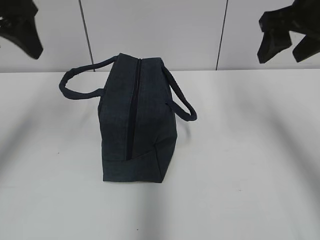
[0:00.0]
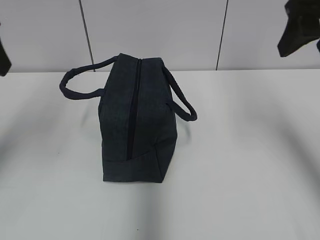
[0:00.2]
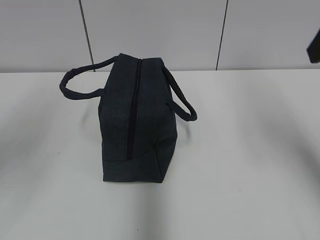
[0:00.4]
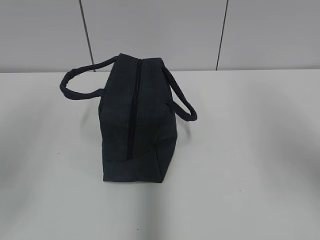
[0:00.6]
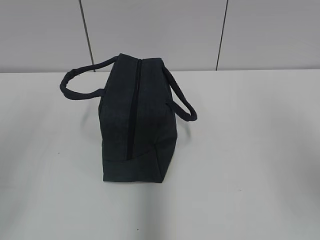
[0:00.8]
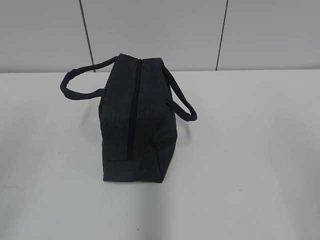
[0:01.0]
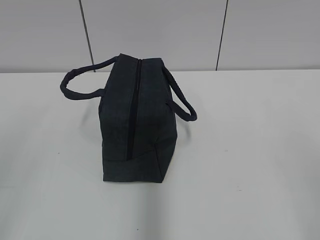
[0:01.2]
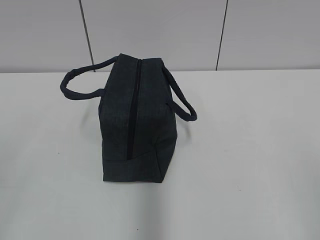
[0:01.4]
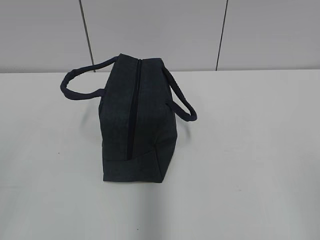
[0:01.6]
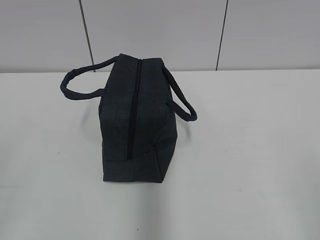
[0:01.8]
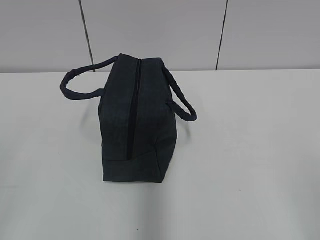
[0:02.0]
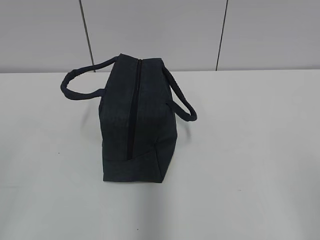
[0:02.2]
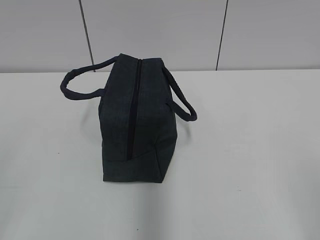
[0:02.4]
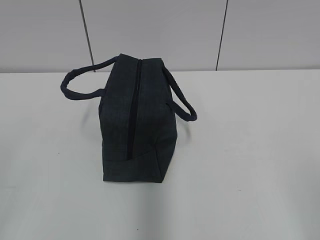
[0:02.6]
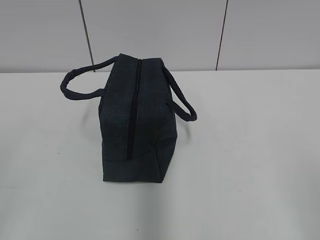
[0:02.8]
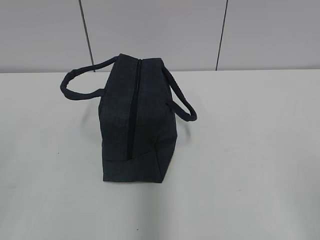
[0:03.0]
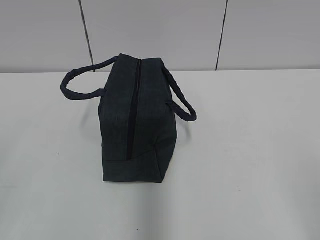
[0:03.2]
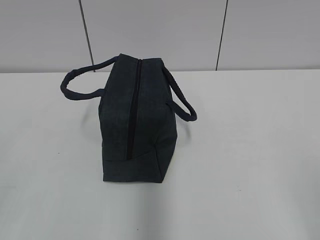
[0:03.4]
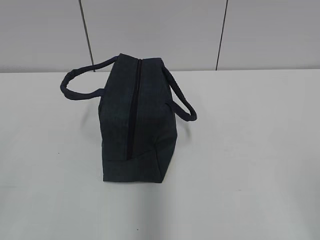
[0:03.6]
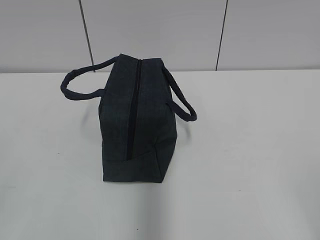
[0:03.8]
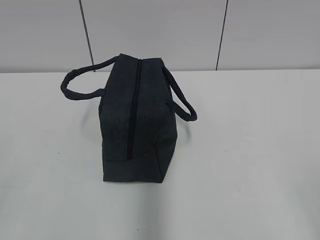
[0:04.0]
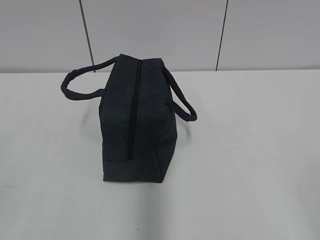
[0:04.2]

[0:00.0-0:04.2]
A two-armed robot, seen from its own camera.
0:00.0 to 0:01.4: The two grippers go about 30 cm backward.

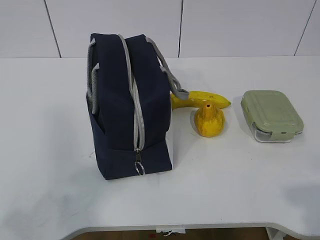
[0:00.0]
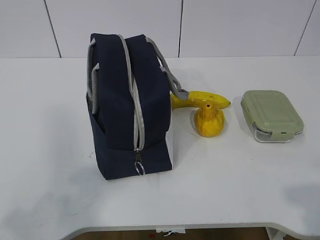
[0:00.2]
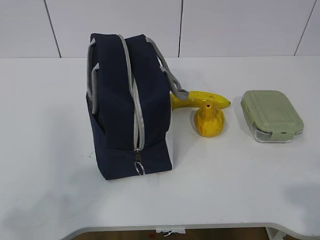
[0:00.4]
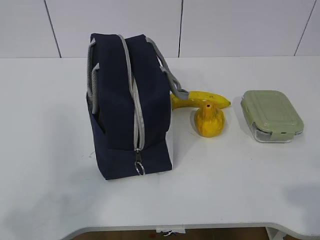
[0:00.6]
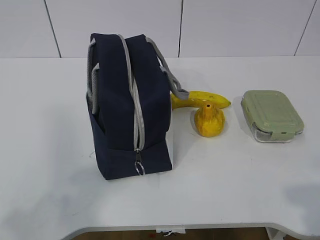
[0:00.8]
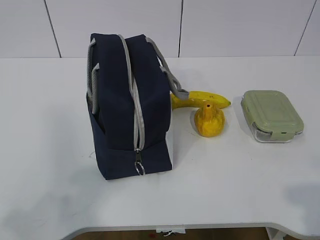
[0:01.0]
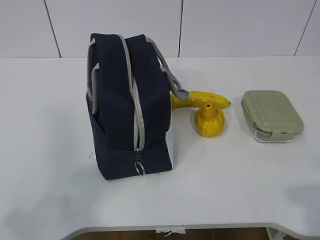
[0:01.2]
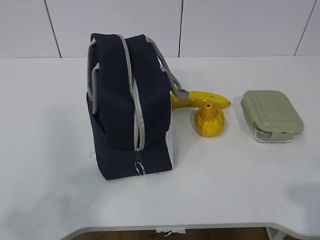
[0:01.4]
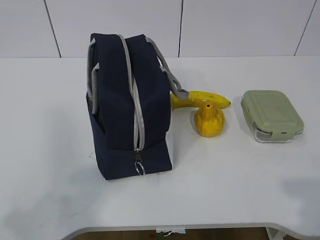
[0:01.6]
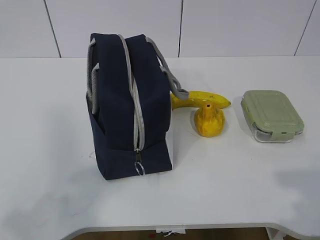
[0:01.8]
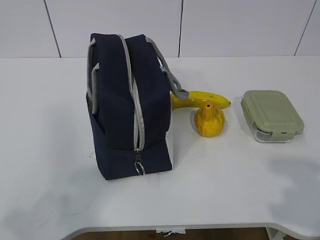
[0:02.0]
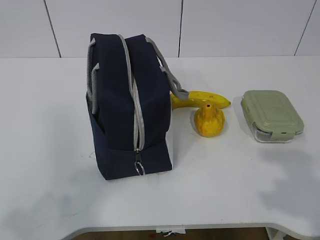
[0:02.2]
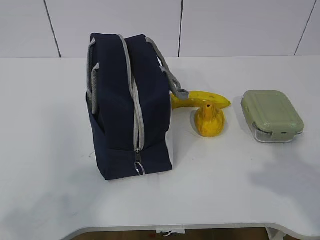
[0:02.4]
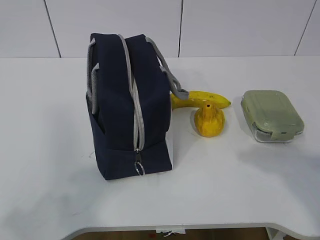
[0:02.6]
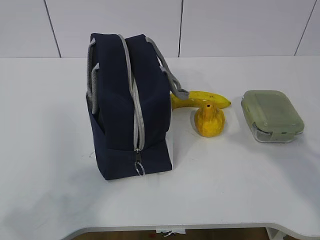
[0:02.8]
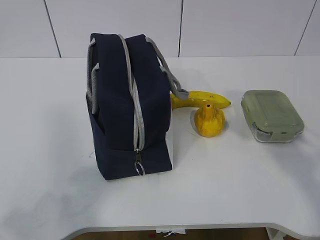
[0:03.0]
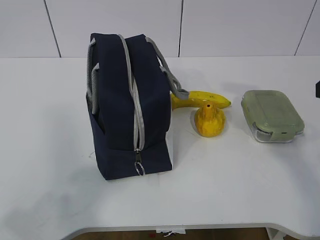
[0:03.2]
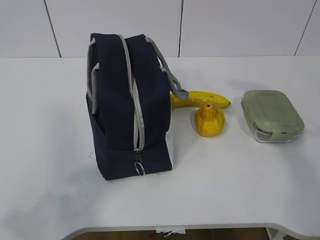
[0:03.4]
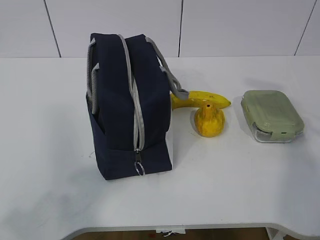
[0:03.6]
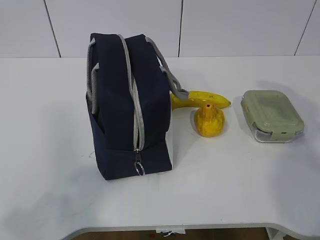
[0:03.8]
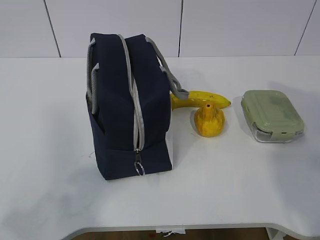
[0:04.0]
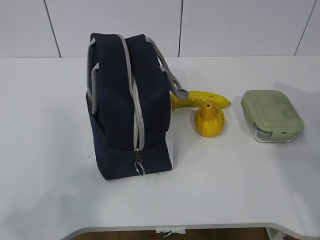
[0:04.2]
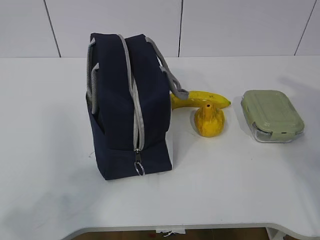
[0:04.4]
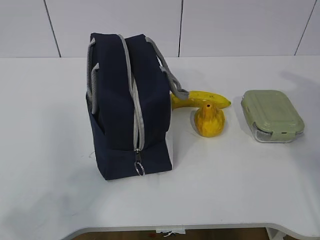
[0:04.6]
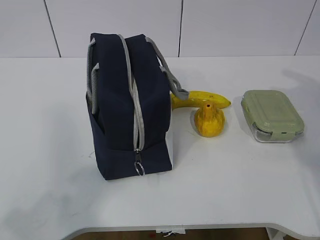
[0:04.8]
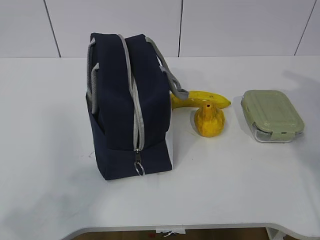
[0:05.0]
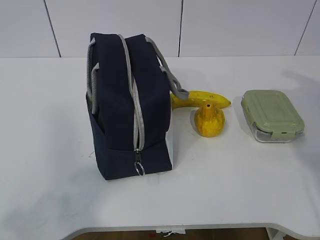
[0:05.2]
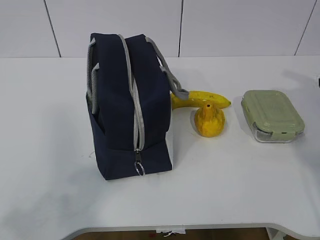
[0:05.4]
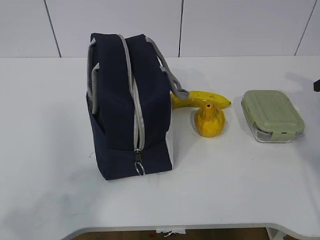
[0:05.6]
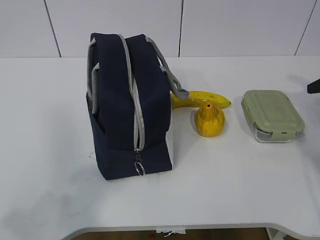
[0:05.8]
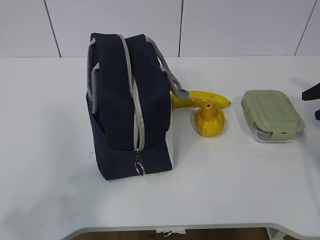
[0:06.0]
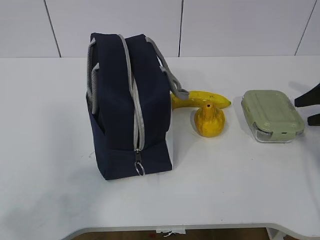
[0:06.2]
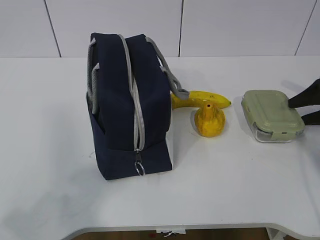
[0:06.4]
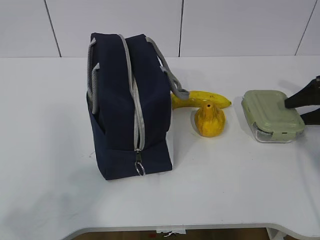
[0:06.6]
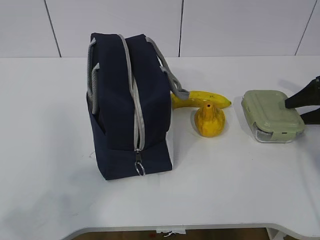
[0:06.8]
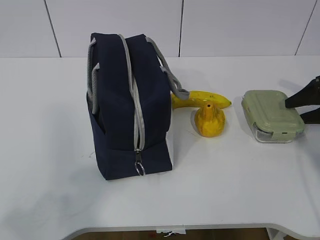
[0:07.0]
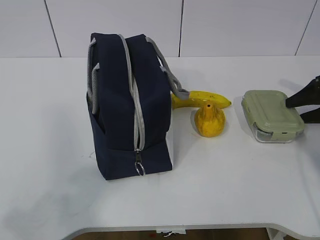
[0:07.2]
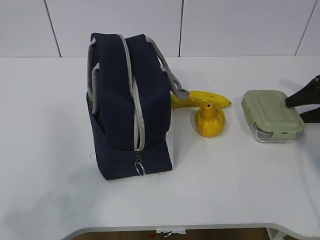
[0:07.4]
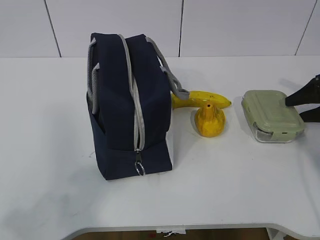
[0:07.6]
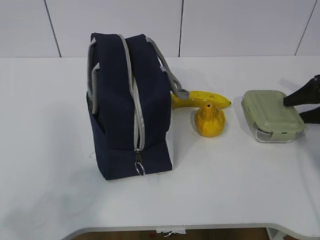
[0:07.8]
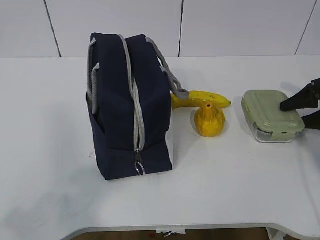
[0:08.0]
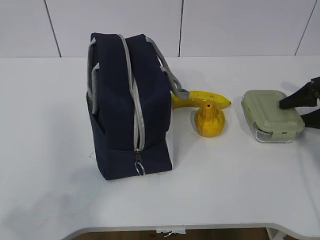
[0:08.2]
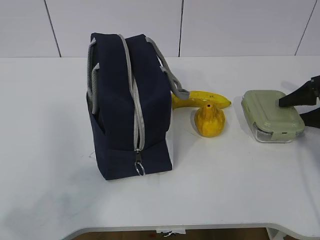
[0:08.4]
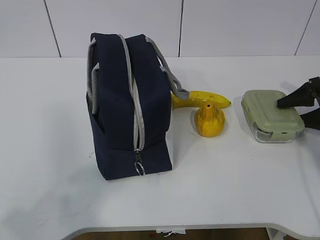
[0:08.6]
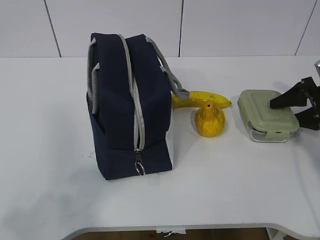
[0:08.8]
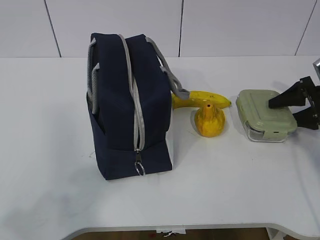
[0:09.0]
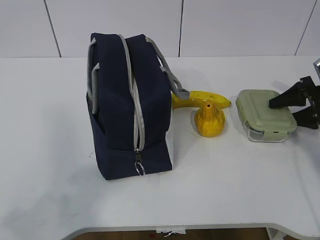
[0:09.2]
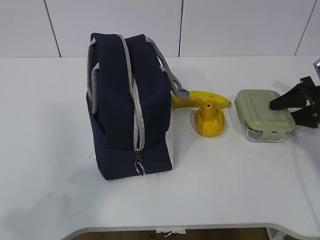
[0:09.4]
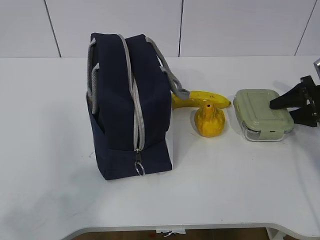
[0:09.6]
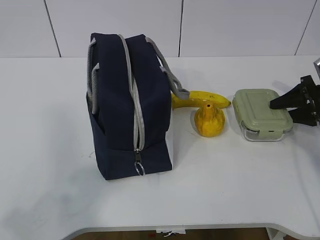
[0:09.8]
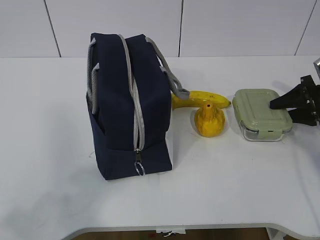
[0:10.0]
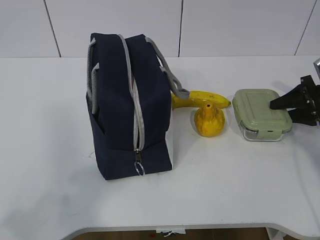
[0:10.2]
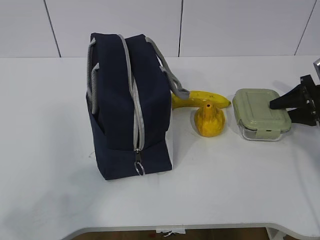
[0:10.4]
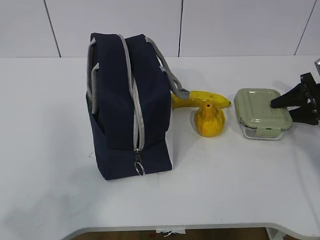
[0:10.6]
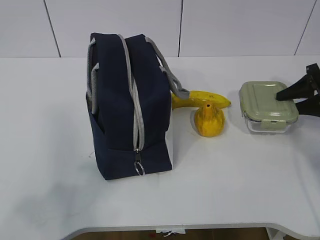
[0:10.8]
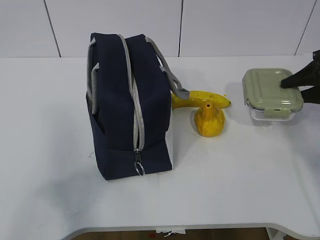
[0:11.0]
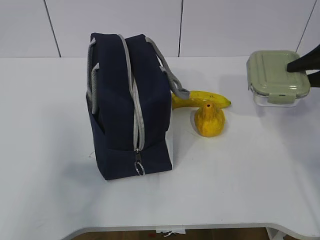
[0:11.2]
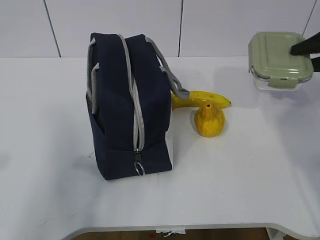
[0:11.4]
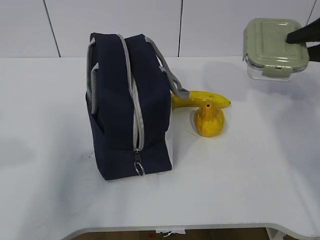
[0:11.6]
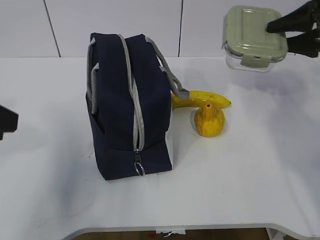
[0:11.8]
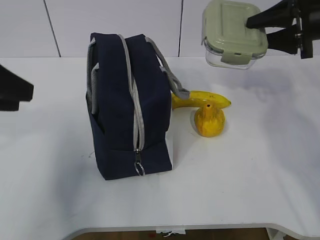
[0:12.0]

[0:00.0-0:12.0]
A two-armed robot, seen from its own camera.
0:01.6 to 0:03.0: The right gripper goes approximately 20 cm forward.
0:06.0 to 0:07.6: The grippers stay close to where they were, moving slightly.
0:07.6 to 0:09.0: The grippers move only a little.
0:09.0 to 0:10.4: The right gripper closes.
0:10.4 to 0:12.0: The right gripper is displaced upward and to the left by roughly 20 cm. Meanwhile the left gripper goes roughly 20 cm forward.

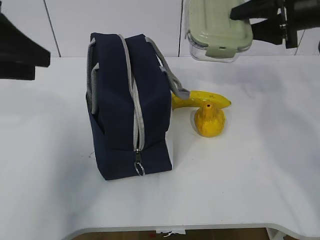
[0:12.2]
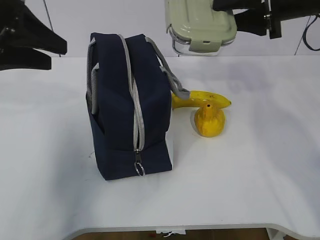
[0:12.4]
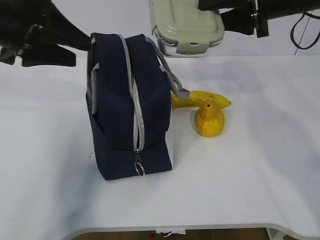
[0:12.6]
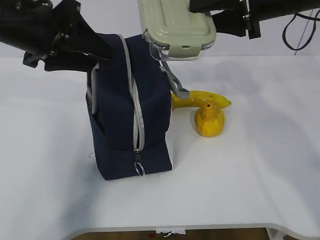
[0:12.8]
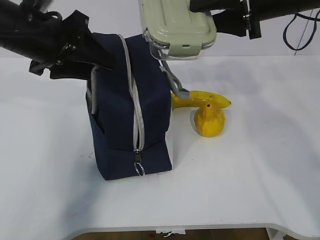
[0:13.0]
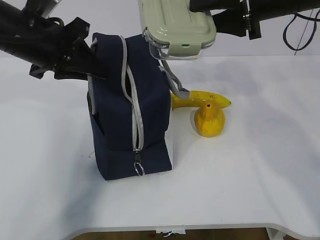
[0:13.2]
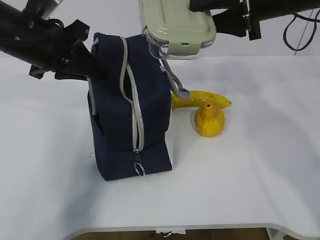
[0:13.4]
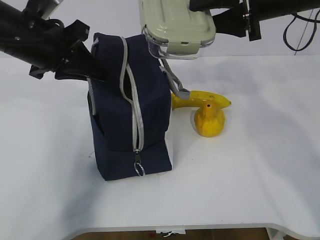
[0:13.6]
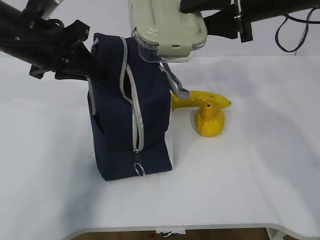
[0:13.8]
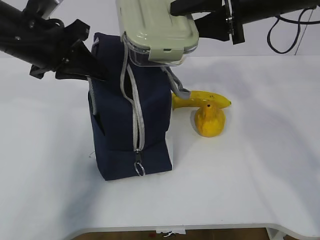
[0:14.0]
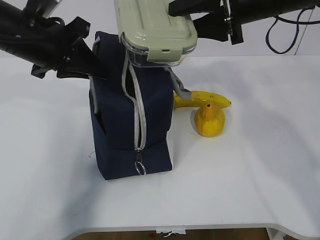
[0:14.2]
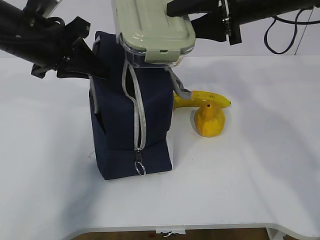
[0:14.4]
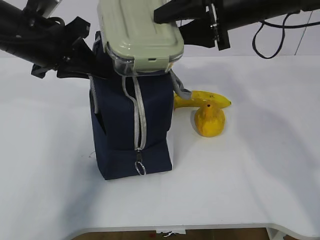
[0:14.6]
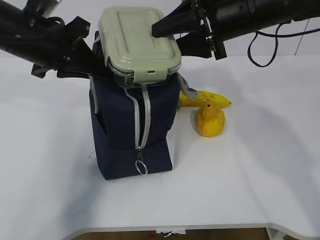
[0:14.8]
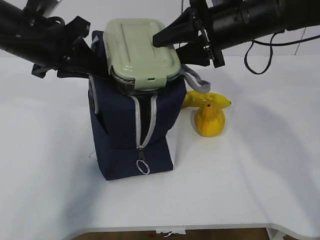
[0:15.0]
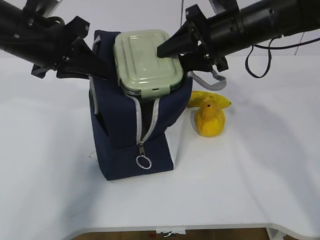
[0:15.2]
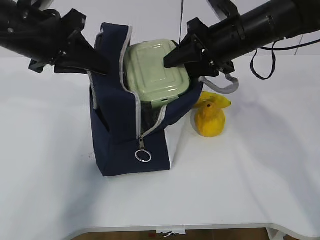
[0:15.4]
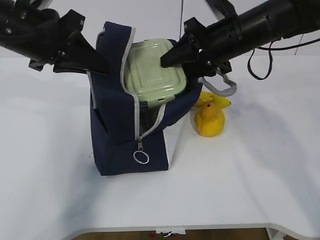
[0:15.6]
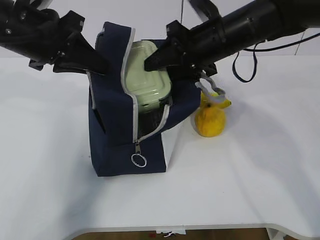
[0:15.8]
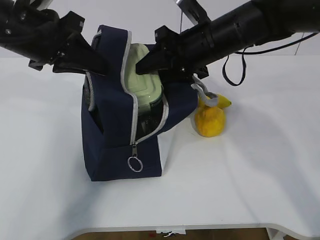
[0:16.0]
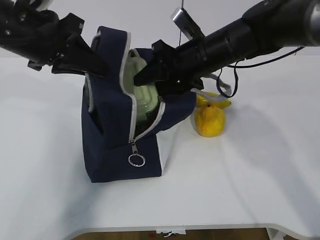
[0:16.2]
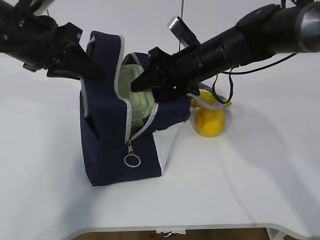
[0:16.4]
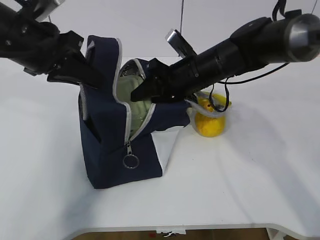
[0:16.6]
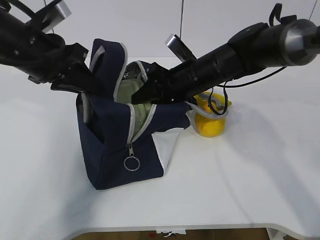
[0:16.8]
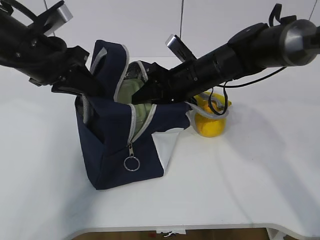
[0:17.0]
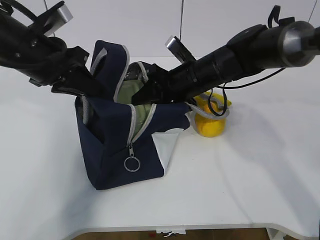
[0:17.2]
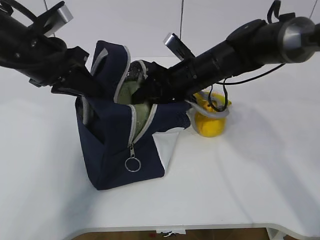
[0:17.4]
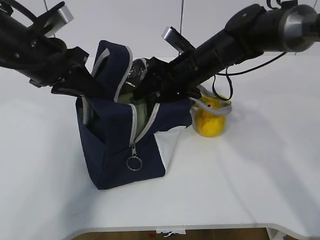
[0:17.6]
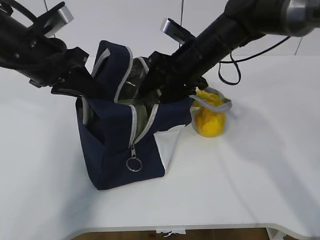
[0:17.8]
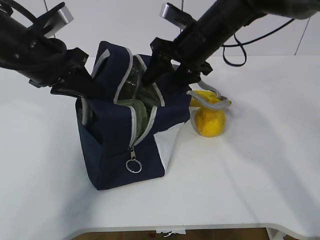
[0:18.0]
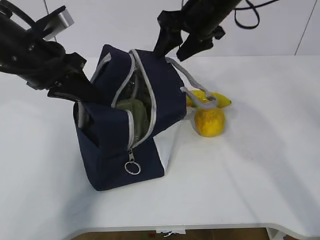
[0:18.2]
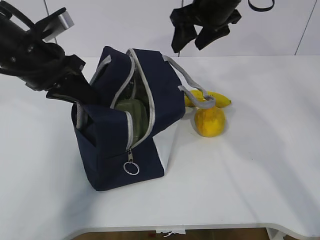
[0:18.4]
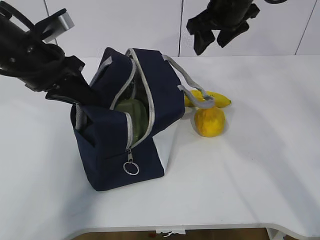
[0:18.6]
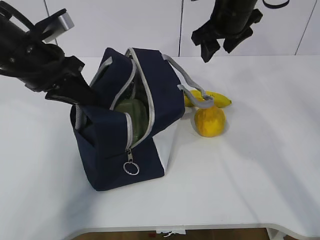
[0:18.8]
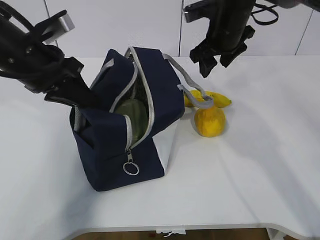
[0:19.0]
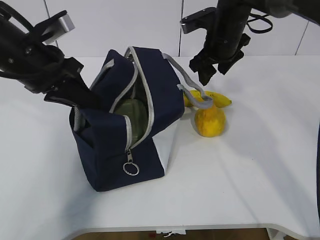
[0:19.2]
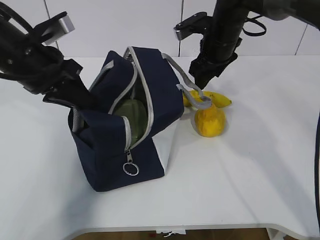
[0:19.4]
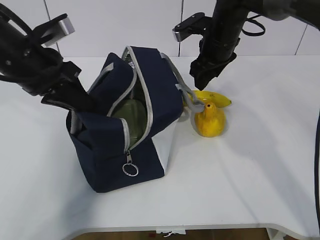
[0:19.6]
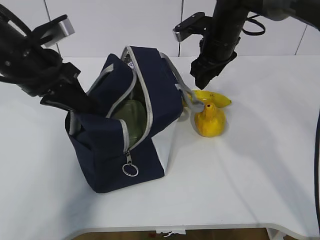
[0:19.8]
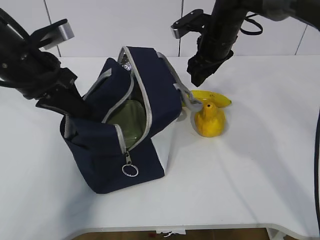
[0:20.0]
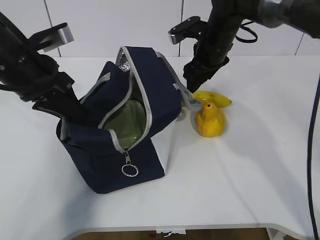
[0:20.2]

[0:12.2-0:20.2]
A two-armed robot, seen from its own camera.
Step, 0:12.4 to 0:14.6: Place it into the bag with your right hand.
Step, 0:15.0 to 0:18.6: Grab the banana with your right hand.
0:12.2 to 0:13.8: The left gripper heads forward and to the right, covering approximately 10 cm, and closes up. Meanwhile the right gripper travels to the left by approximately 10 cm.
0:13.8 to 0:15.4: The right gripper heads downward, covering approximately 5 cm.
0:15.4 to 0:17.0: The right gripper heads downward and to the left, covering roughly 10 cm.
0:17.0 to 0:18.6: The right gripper is displaced upward and to the right by some 15 cm.
0:18.6 to 0:20.2: The right gripper is displaced downward by some 10 cm.
